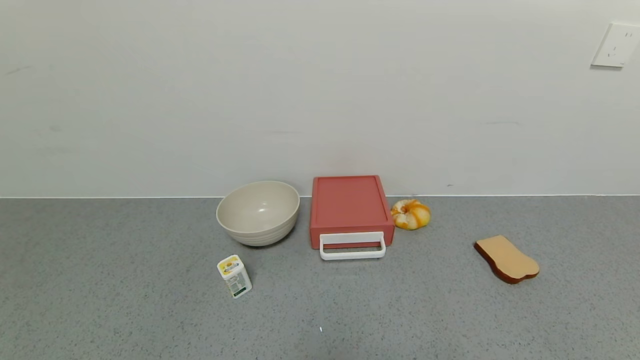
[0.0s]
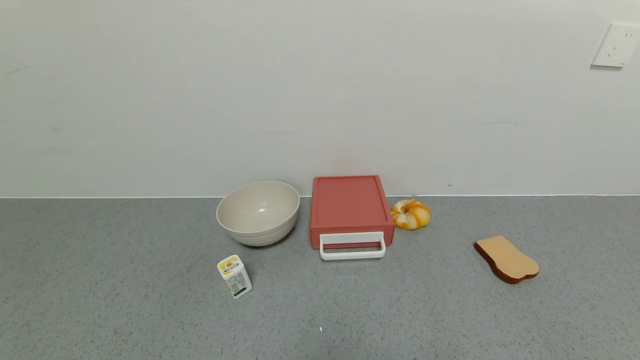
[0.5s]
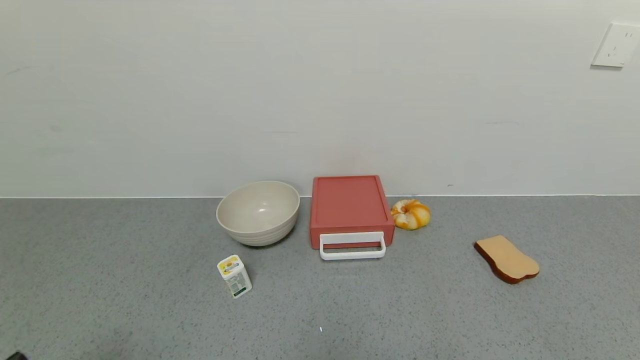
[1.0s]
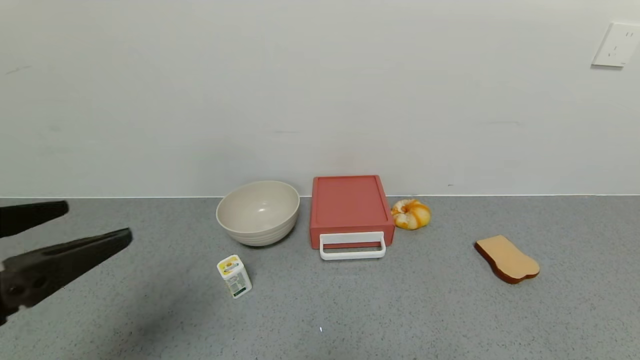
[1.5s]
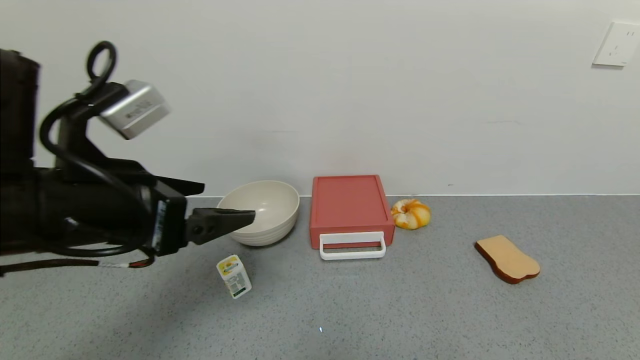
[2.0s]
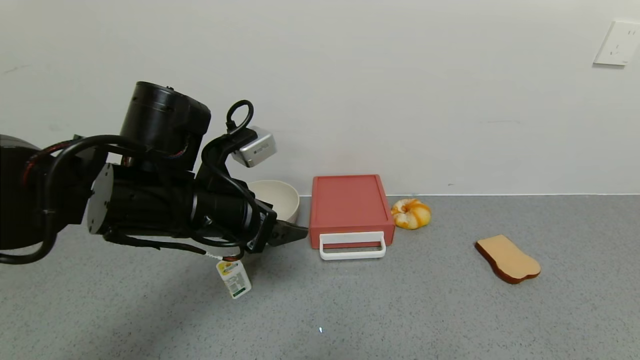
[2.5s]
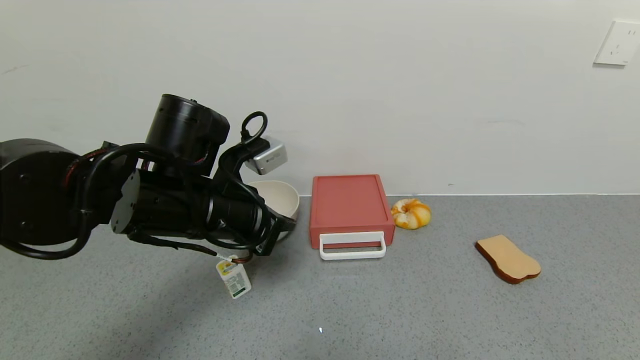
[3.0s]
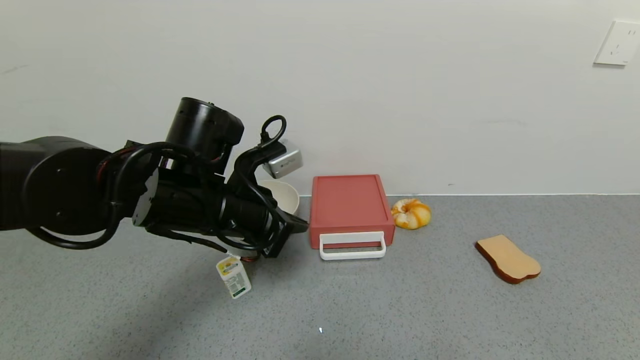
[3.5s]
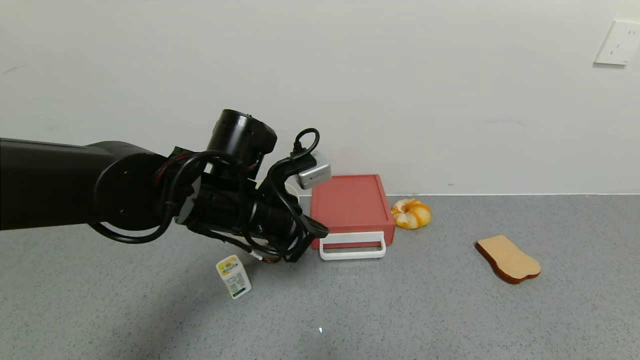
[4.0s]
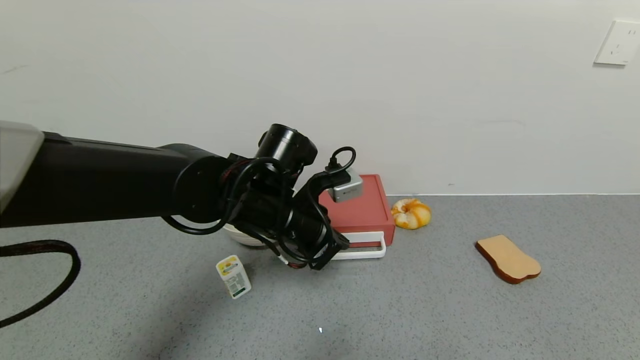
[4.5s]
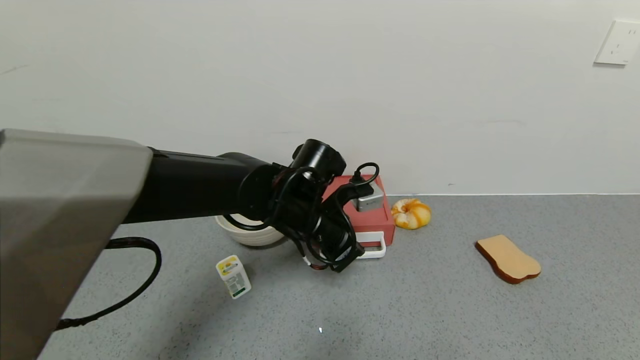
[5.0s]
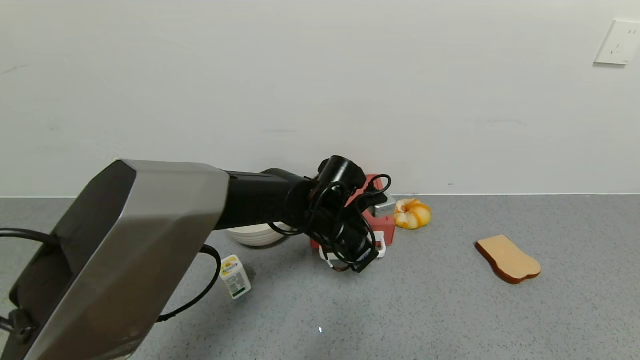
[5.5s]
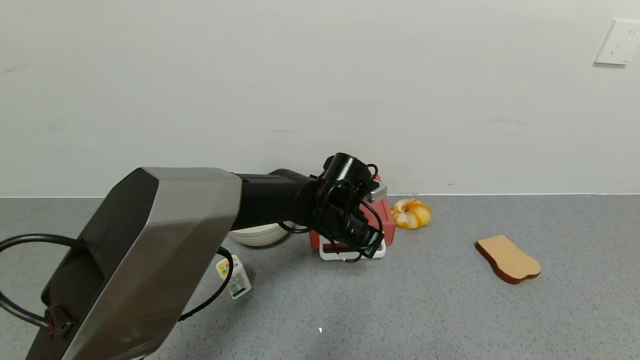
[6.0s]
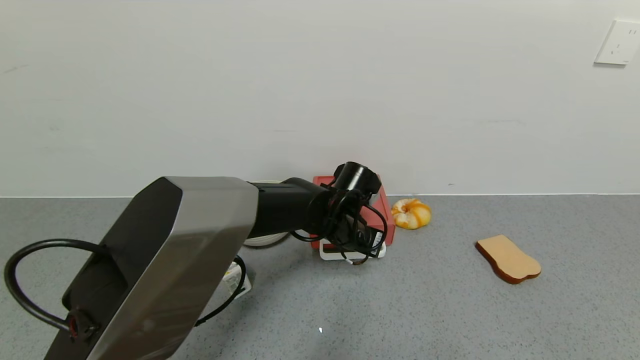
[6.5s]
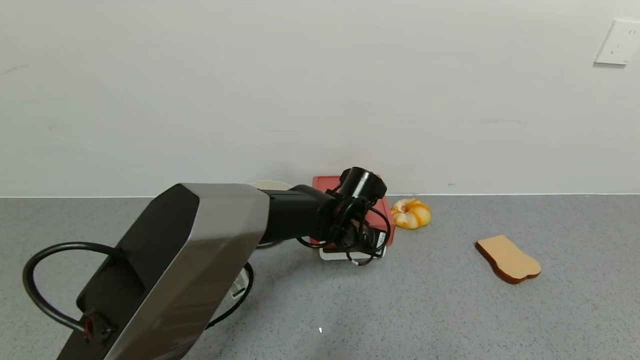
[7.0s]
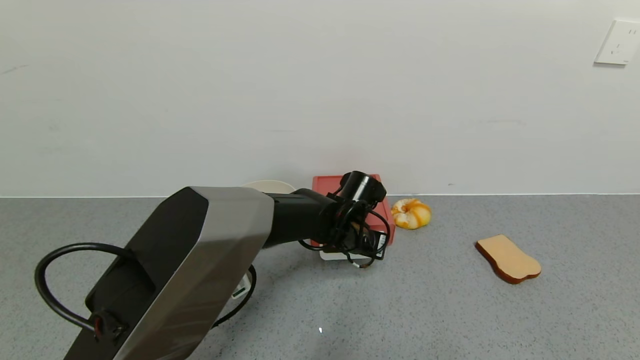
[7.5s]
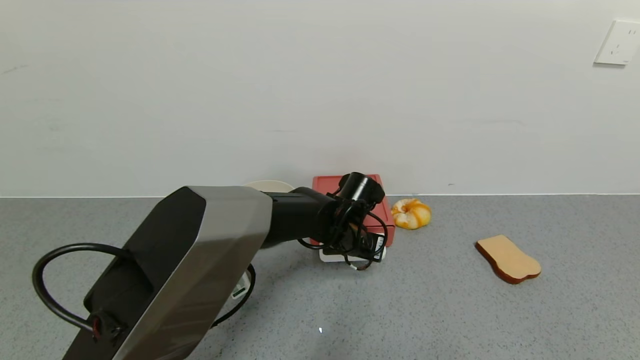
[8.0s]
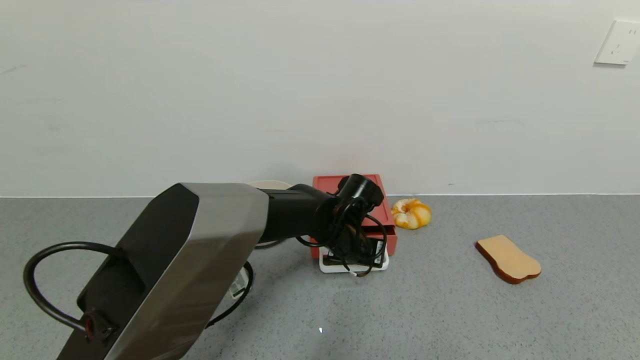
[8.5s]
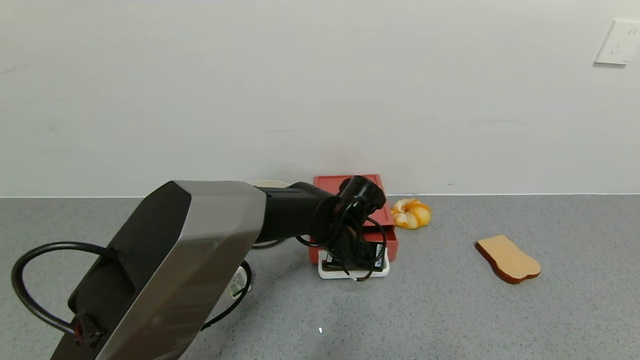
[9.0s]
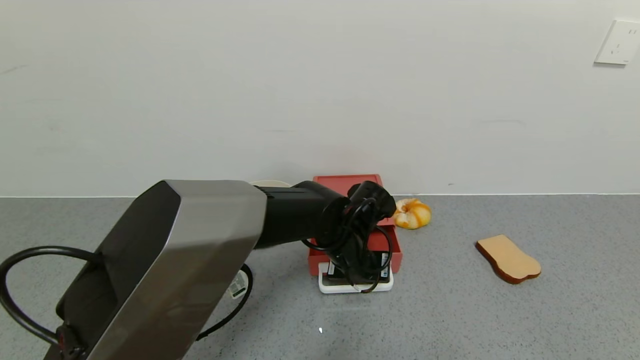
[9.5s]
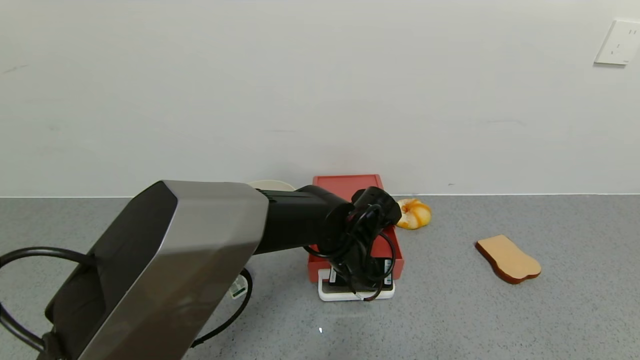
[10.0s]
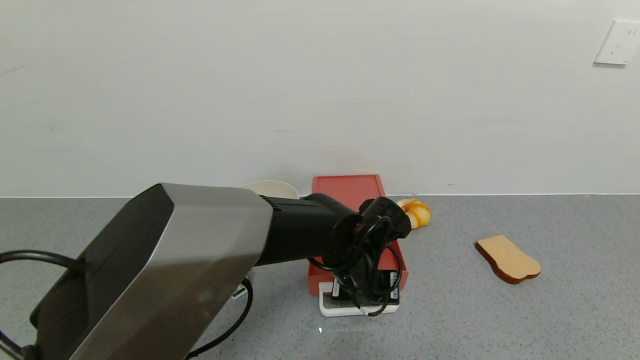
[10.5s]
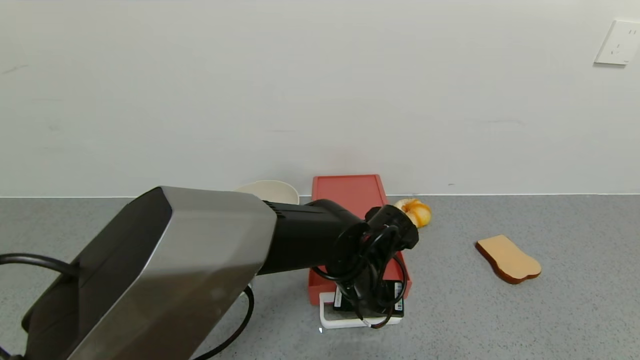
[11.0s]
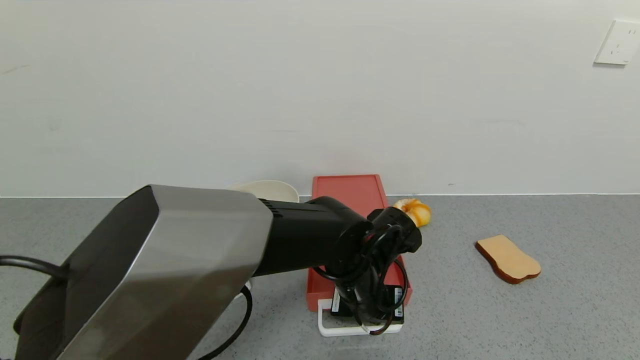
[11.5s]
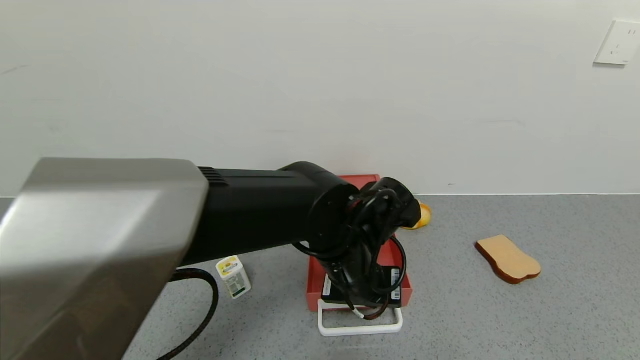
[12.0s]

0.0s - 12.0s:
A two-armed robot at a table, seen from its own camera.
Task of the whole recording: use the gripper to open the drawer and close the red drawer.
Step, 0.0s - 12.0s: Open the red drawer with the left gripper.
0.0s - 2.0s: The left gripper is displaced forward, upward and to the right by about 30 cm.
2.0s - 4.0s: The left gripper travels forward, to the right and downward by approximately 15 cm, and closes its fingers.
4.0s - 6.0s: The left gripper heads to the right, forward and downward, covering about 15 cm.
6.0s - 8.0s: The grippers make only small movements.
8.0s - 10.0s: The left gripper travels backward by about 5 cm.
10.0s - 12.0s: The left gripper is displaced upward and backward by roughly 10 cm.

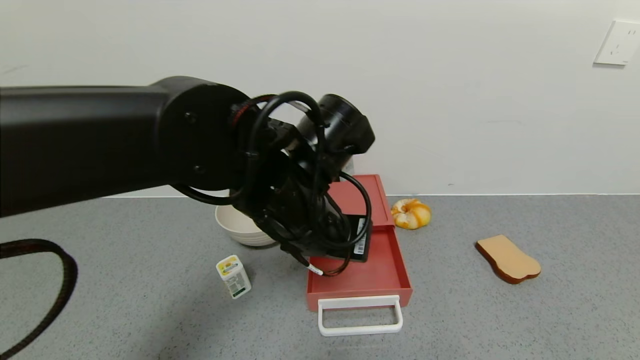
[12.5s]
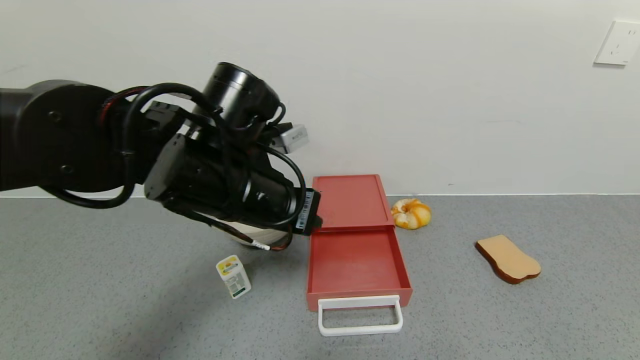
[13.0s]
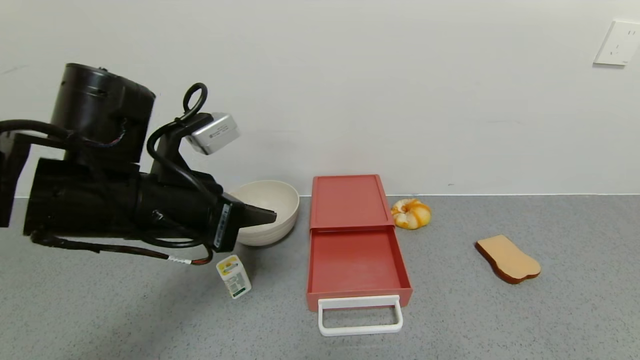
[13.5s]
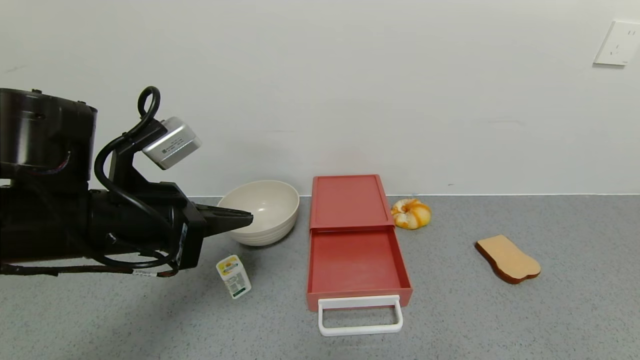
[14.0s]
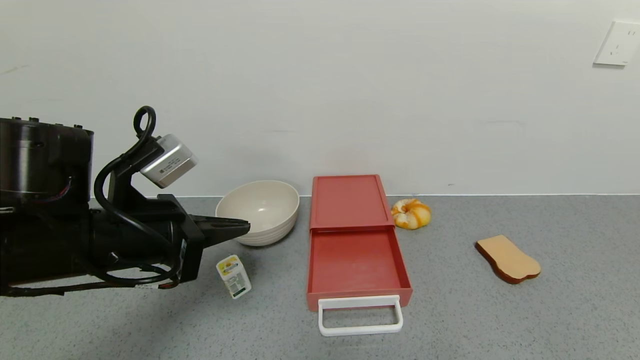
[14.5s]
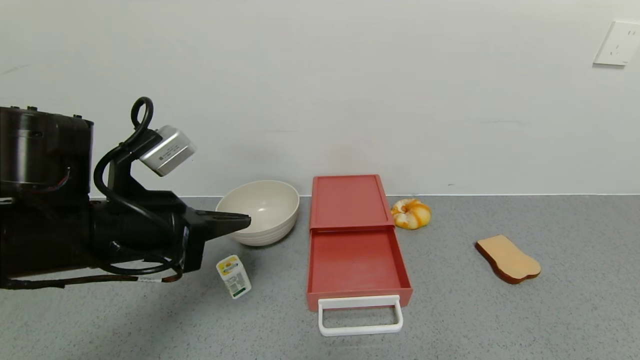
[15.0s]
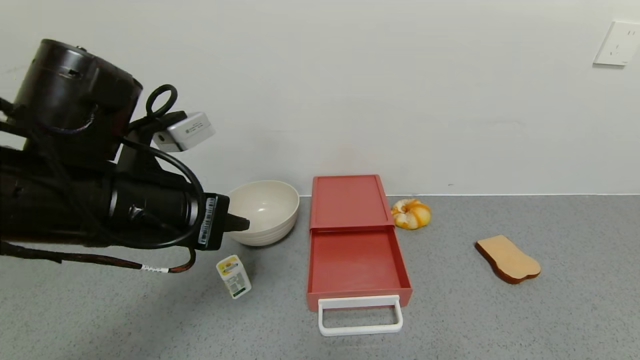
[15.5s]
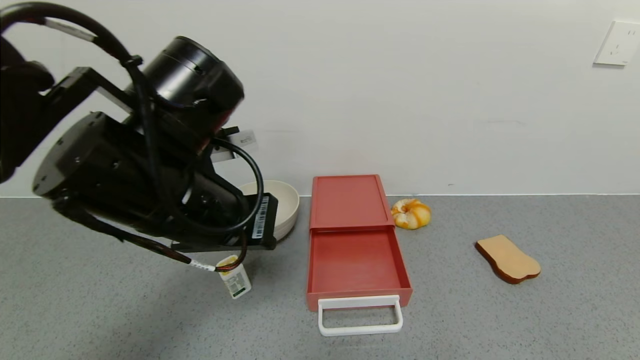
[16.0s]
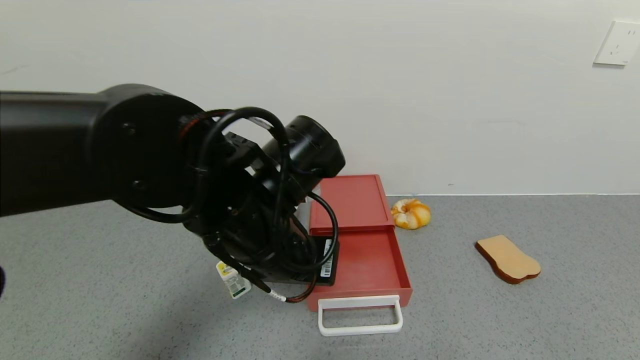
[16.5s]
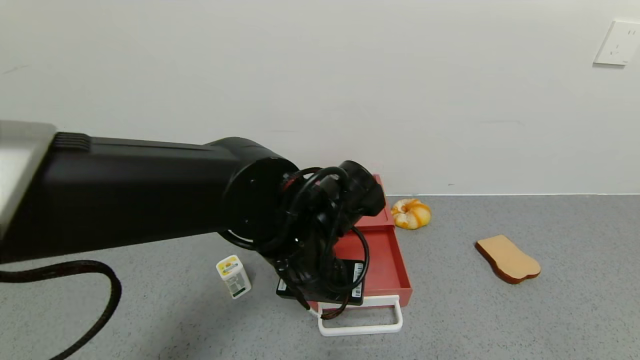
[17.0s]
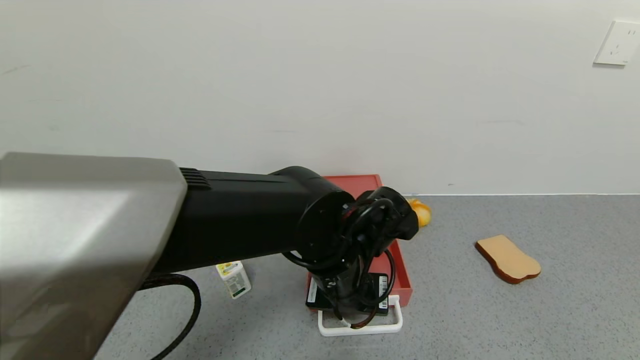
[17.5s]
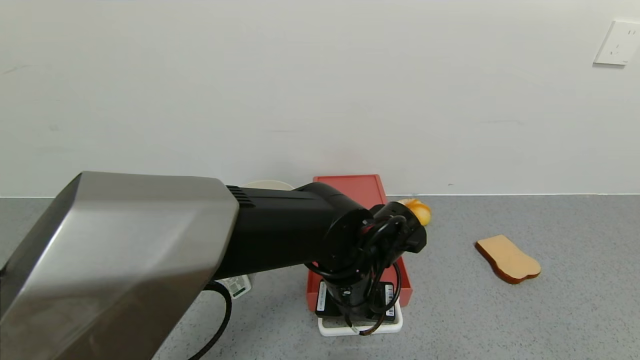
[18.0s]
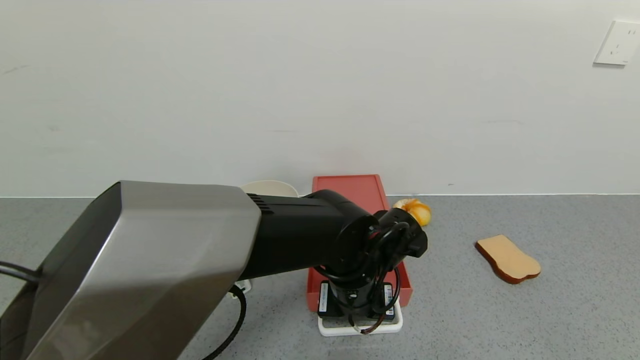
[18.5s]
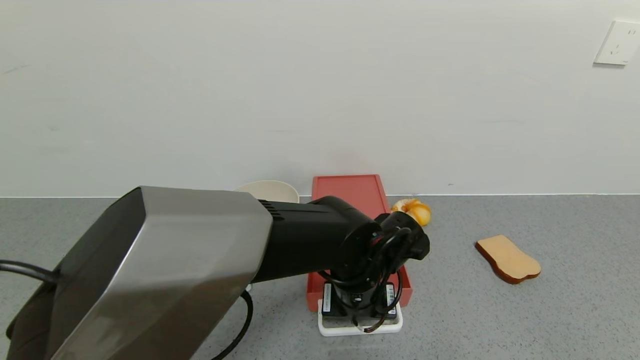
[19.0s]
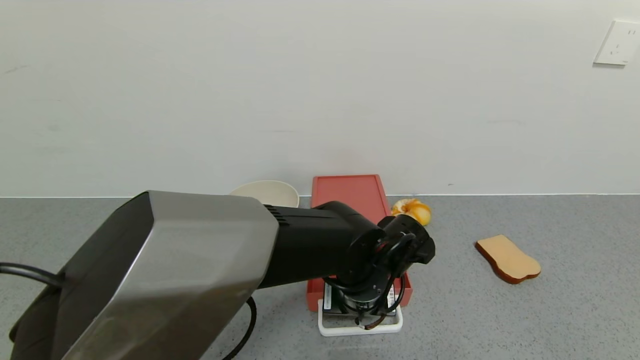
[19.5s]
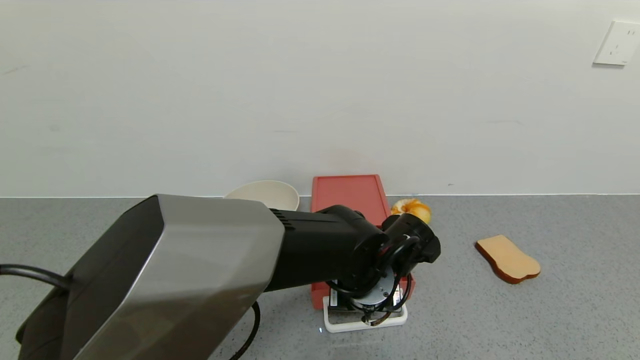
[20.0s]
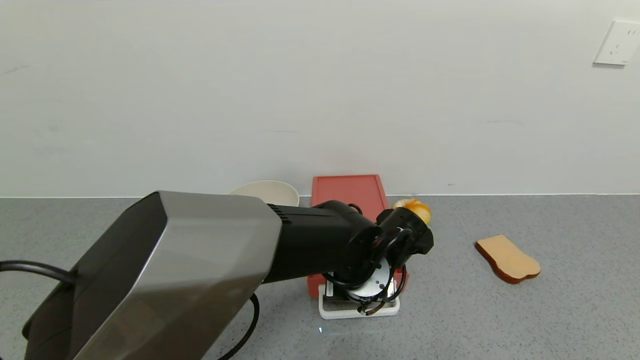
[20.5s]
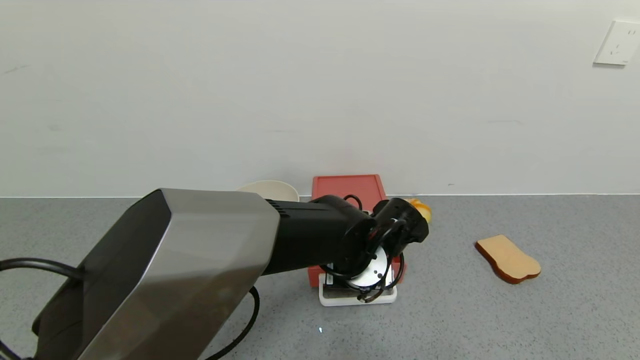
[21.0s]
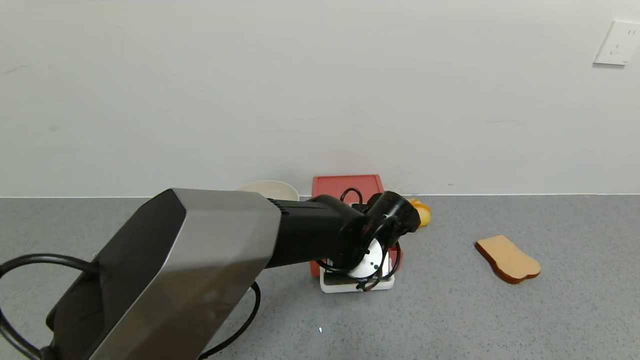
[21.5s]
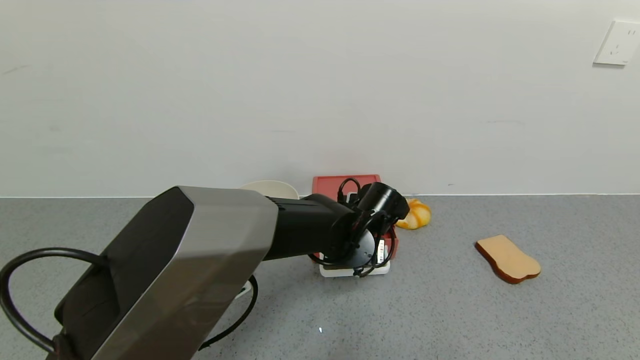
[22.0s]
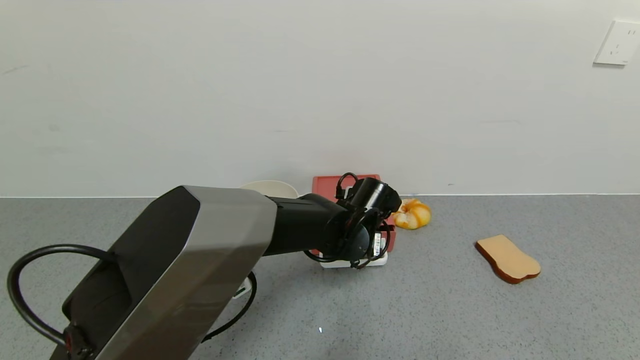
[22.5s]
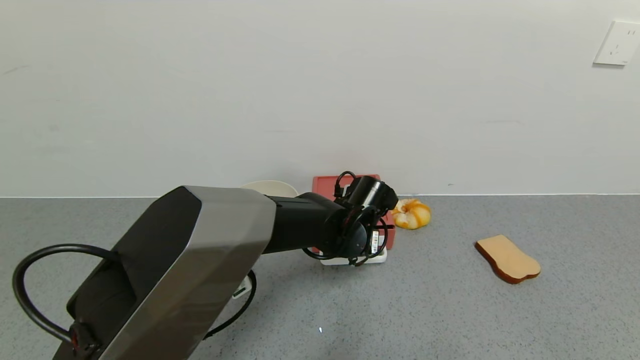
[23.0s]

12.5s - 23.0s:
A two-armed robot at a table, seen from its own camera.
Task of the whole recording: use the gripper to open the drawer and close the red drawer.
12.5s - 14.5s: The left gripper is displaced to the left by approximately 20 cm.
14.5s - 16.5s: The left gripper travels to the right by some 15 cm.
16.5s - 19.0s: The left gripper goes roughly 15 cm downward and to the right.
19.0s - 21.0s: The grippers make only small movements.
21.0s - 23.0s: The left gripper shifts approximately 5 cm forward.
